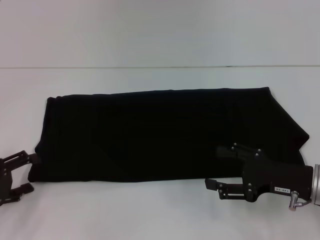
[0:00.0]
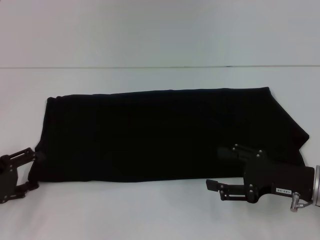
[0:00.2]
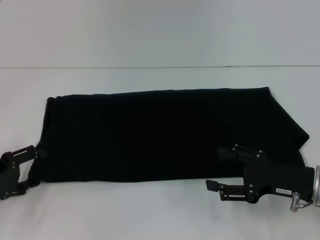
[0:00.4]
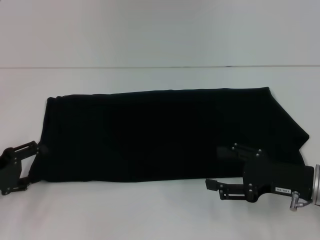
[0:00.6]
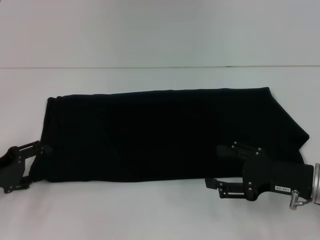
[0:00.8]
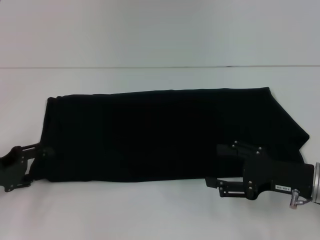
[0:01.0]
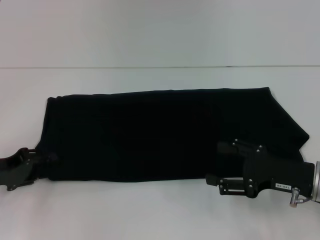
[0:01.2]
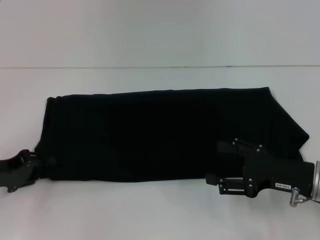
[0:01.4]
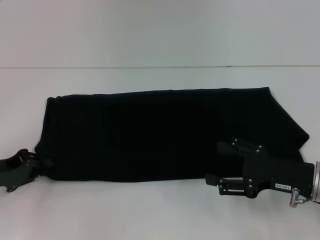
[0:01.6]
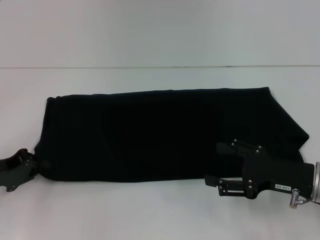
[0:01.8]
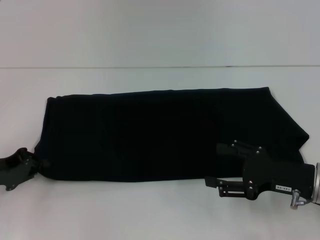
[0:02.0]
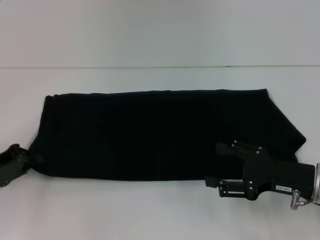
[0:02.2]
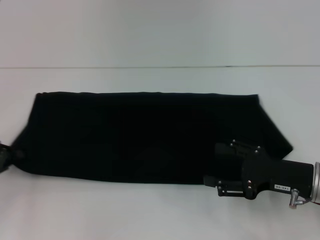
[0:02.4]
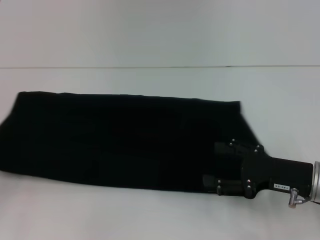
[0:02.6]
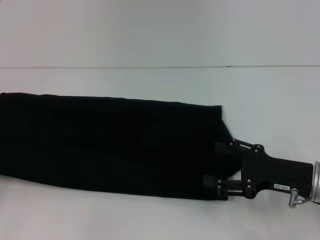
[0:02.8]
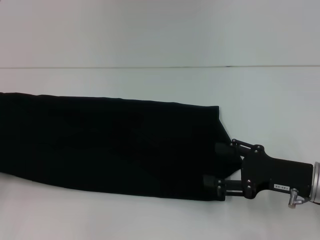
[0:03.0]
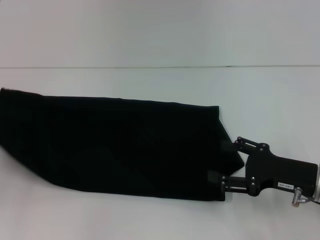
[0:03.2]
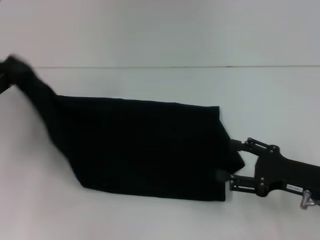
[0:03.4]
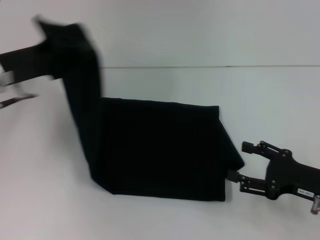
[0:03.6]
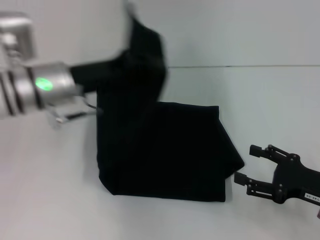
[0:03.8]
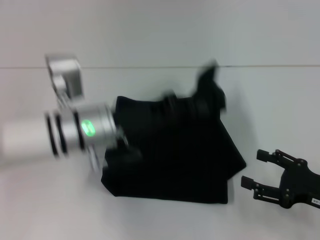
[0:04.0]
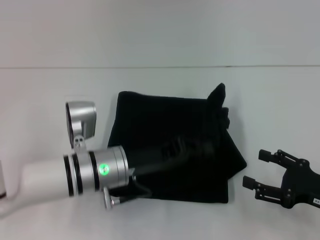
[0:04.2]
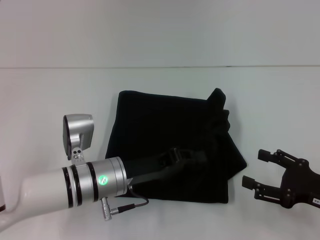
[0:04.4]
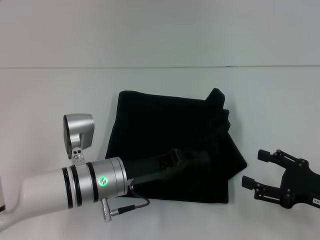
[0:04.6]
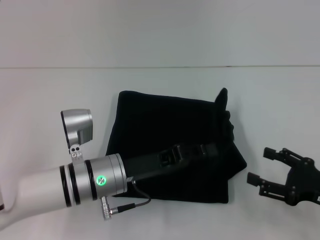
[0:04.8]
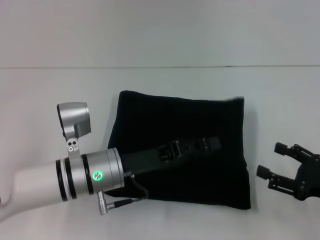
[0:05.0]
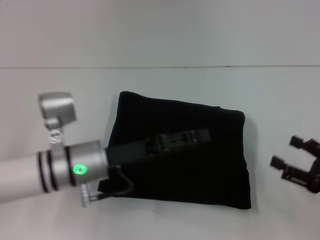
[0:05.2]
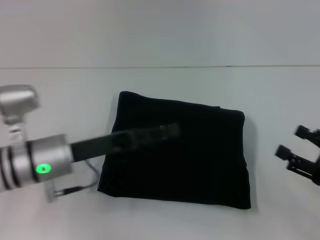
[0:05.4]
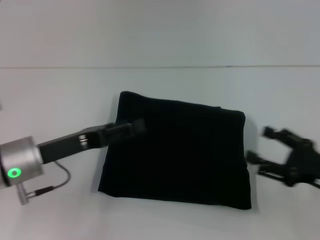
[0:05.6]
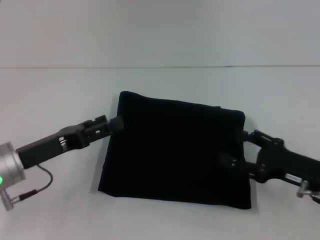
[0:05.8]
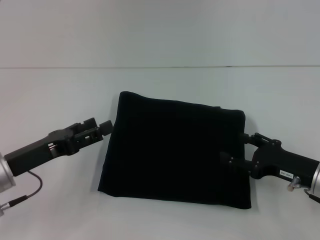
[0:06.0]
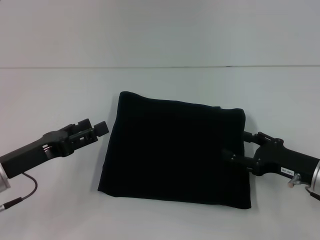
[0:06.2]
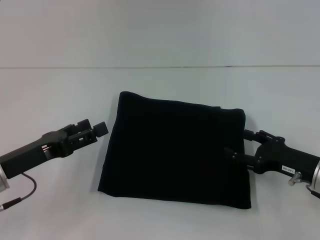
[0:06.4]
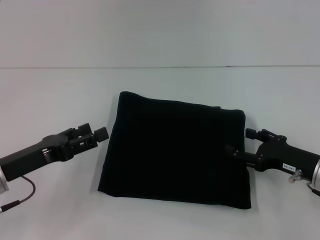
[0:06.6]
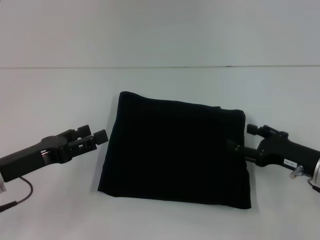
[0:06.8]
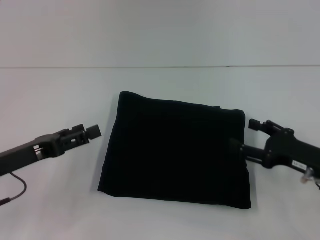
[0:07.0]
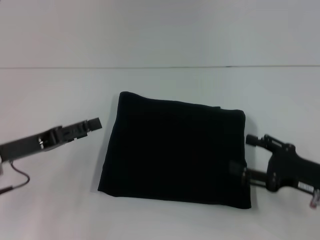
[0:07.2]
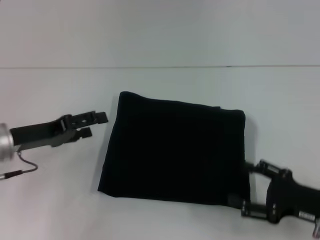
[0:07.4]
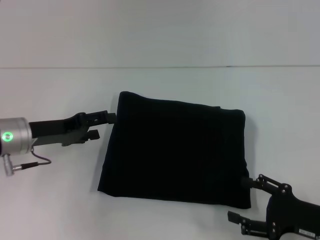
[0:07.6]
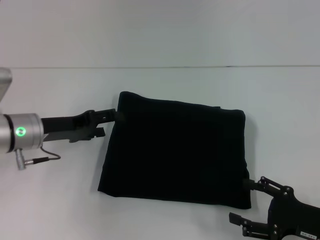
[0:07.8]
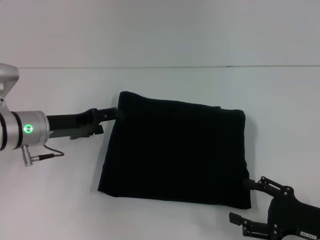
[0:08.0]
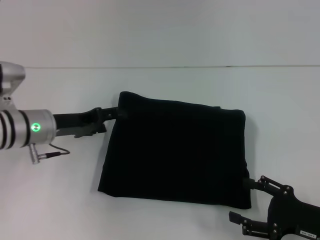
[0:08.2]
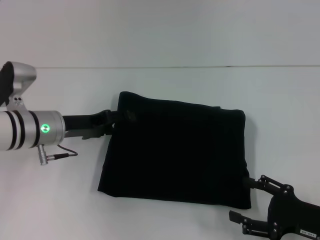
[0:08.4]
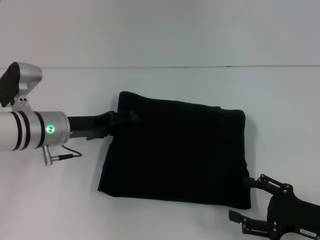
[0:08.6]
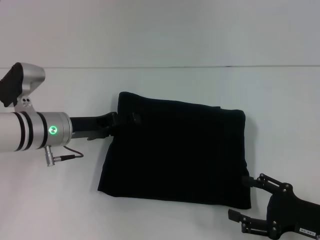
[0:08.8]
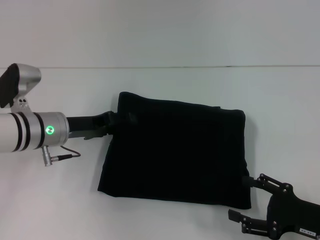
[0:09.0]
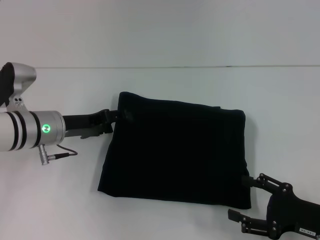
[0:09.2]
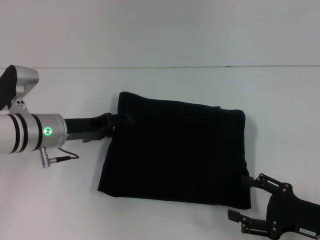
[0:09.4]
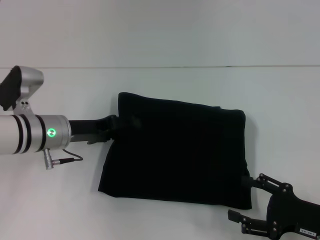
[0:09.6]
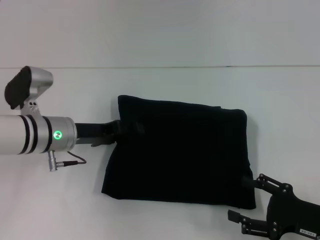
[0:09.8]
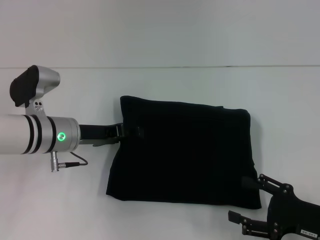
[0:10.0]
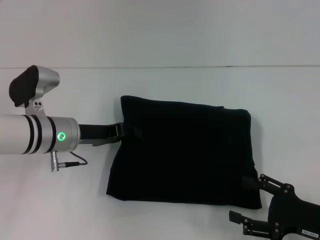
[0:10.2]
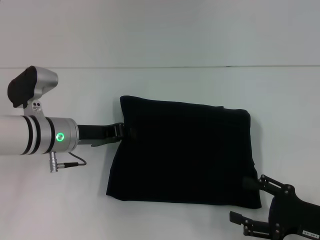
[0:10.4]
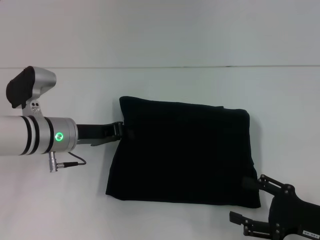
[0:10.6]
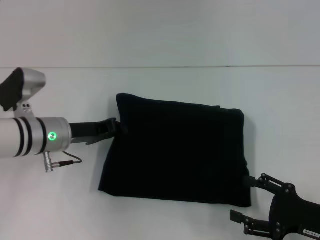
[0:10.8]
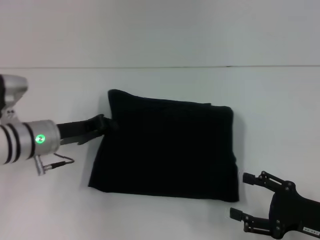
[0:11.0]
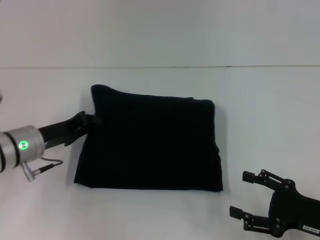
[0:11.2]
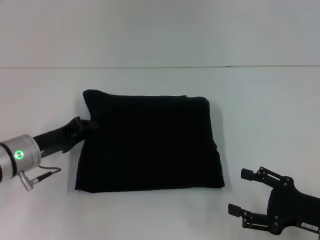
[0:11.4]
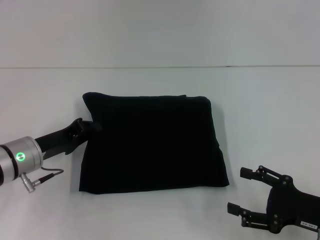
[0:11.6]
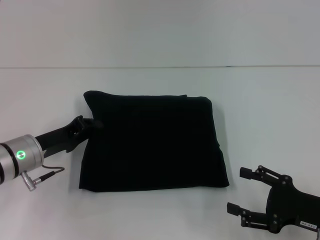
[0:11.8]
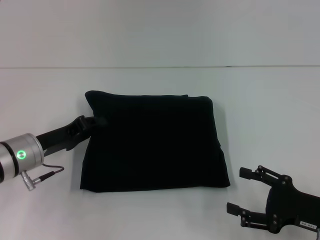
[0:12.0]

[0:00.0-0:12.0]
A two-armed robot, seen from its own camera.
Step, 0:00.0 to 0:04.6: Fold the clothes with your left hand.
0:00.0 to 0:01.6: The left gripper shifts by approximately 5 cm, and closes its fingers.
0:01.6 to 0:03.0: The left gripper is displaced to the left by roughly 10 cm, and closes its fingers.
0:03.0 to 0:04.4: The right gripper heads to the right, covering roughly 5 cm. The left gripper goes about 30 cm to the right.
0:04.4 to 0:06.0: The right gripper changes place by some 5 cm. Meanwhile the left gripper heads to the left, covering approximately 15 cm, and opens.
0:06.0 to 0:07.6: The left gripper shifts about 5 cm forward; the right gripper is displaced backward by about 5 cm.
0:07.6 to 0:09.0: The left gripper changes place by some 5 cm.
0:09.0 to 0:10.4: The left gripper closes.
0:10.4 to 0:12.0: The left gripper changes place by some 5 cm.

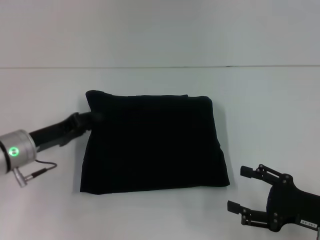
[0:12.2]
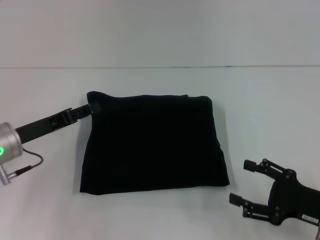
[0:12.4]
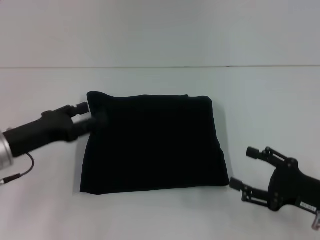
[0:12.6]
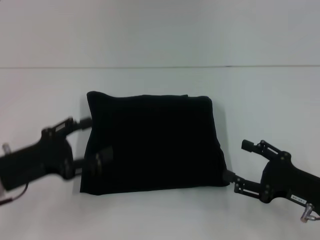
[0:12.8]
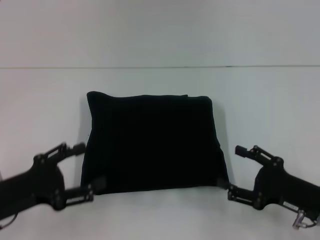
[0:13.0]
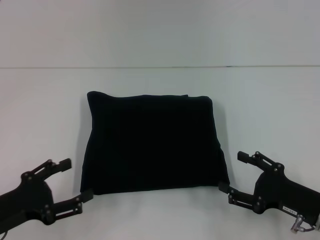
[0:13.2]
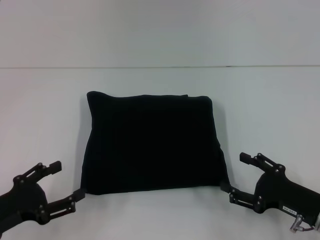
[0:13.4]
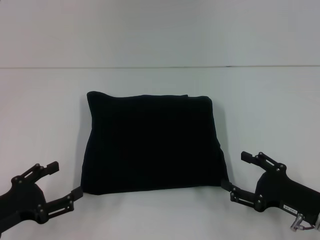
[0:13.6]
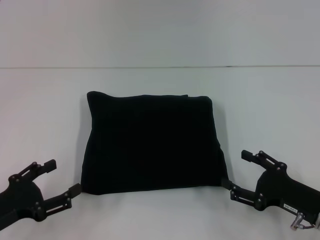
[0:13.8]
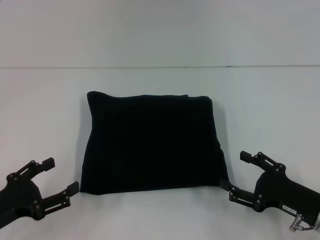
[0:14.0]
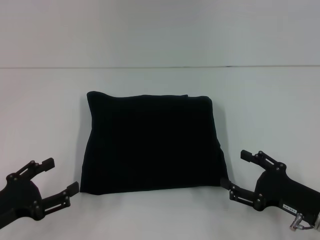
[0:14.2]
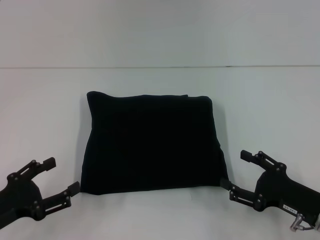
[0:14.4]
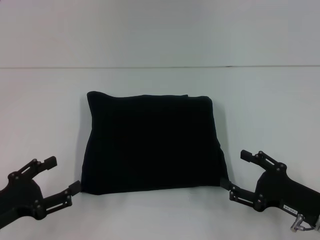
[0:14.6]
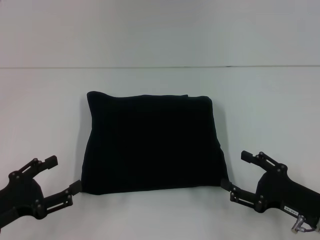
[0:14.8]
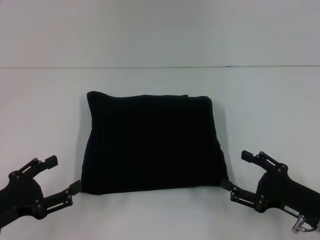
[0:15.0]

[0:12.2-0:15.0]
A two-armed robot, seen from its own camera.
0:12.2 to 0:13.6: The left gripper goes approximately 15 cm backward, and opens up.
0:13.6 to 0:15.0: Both grippers stay put.

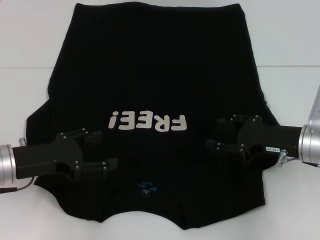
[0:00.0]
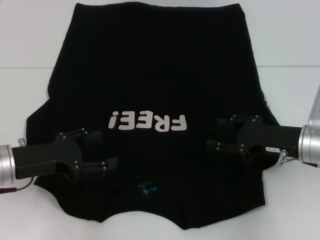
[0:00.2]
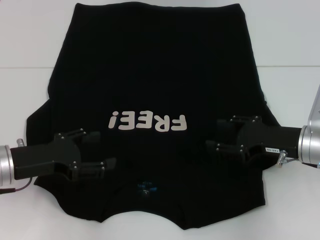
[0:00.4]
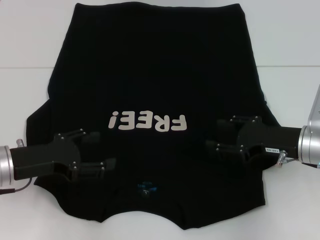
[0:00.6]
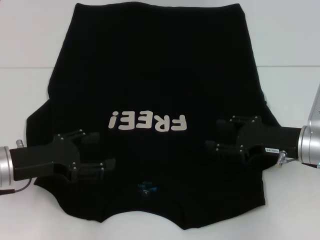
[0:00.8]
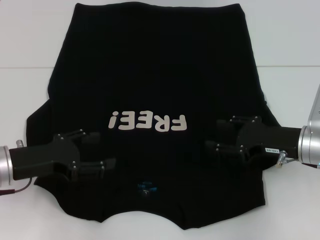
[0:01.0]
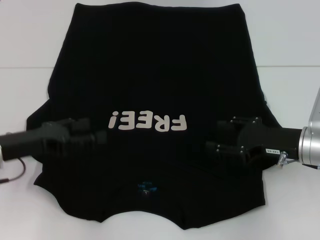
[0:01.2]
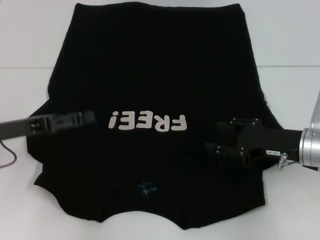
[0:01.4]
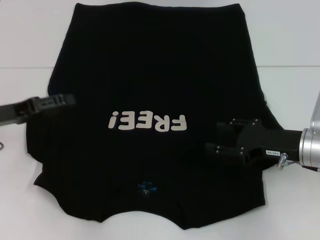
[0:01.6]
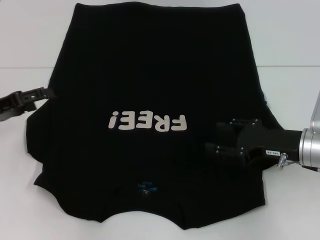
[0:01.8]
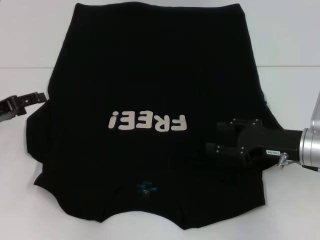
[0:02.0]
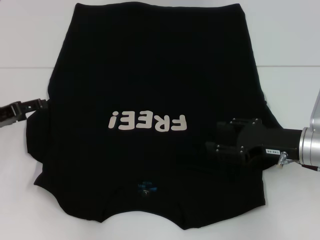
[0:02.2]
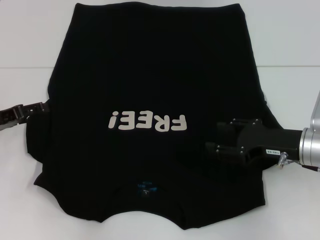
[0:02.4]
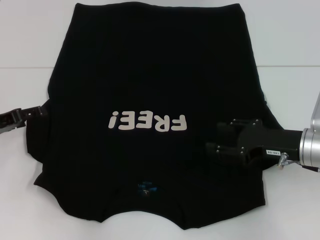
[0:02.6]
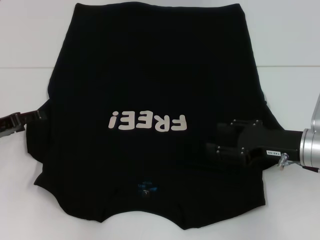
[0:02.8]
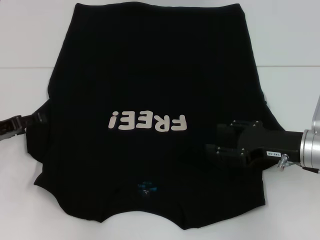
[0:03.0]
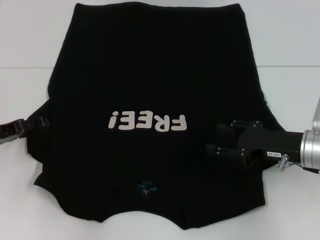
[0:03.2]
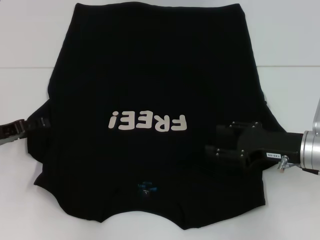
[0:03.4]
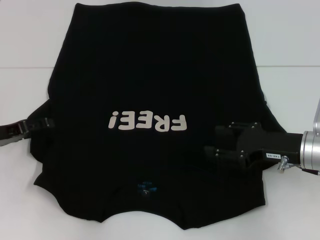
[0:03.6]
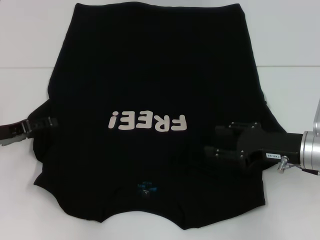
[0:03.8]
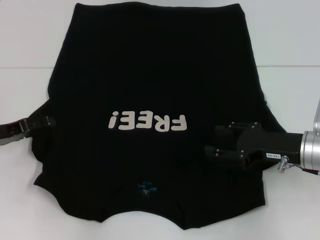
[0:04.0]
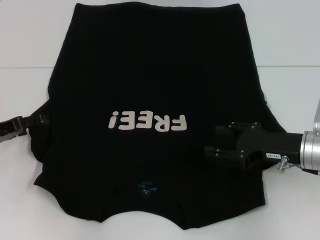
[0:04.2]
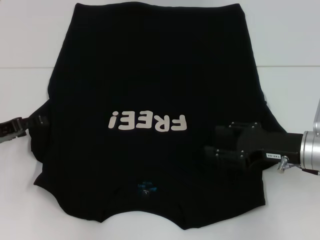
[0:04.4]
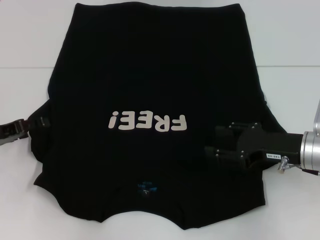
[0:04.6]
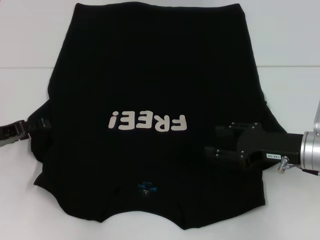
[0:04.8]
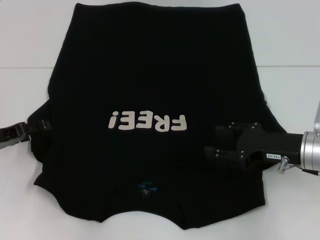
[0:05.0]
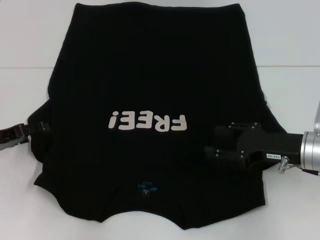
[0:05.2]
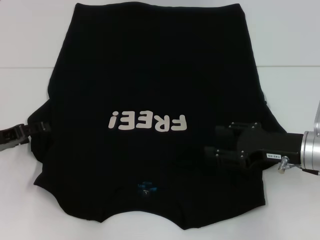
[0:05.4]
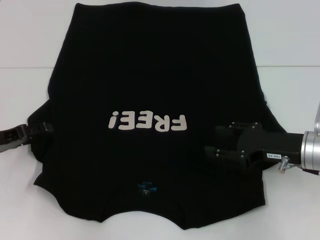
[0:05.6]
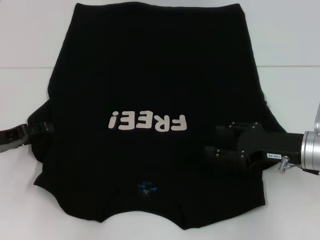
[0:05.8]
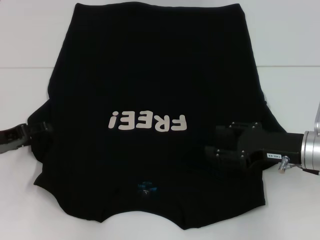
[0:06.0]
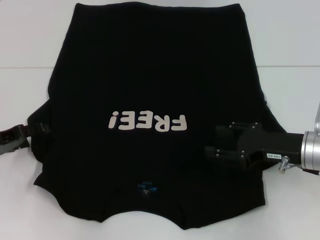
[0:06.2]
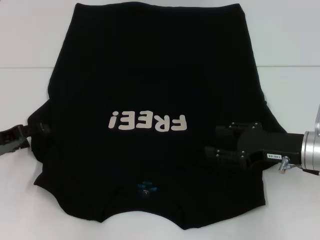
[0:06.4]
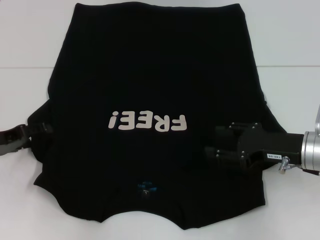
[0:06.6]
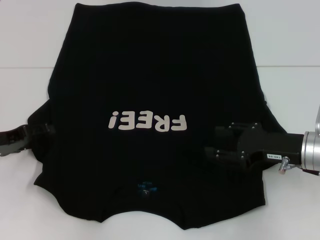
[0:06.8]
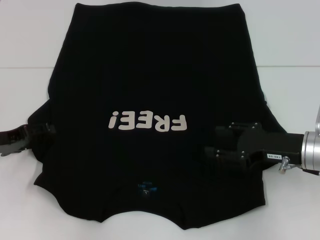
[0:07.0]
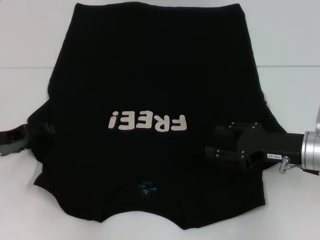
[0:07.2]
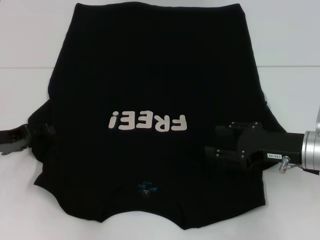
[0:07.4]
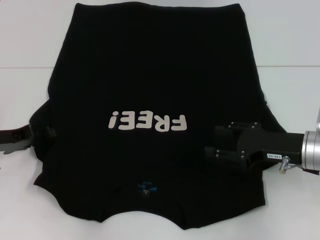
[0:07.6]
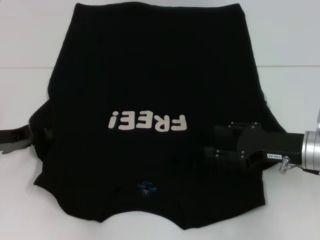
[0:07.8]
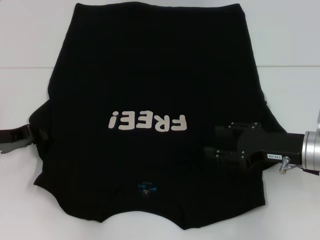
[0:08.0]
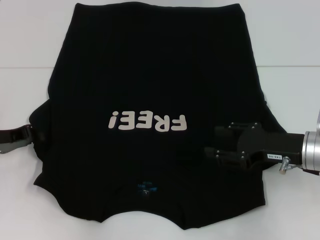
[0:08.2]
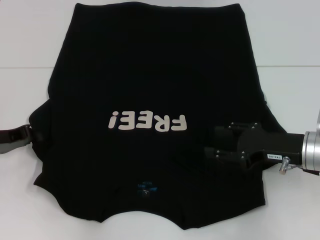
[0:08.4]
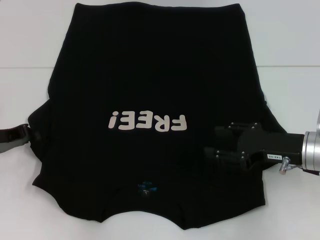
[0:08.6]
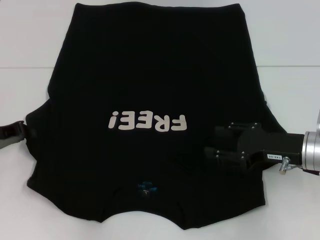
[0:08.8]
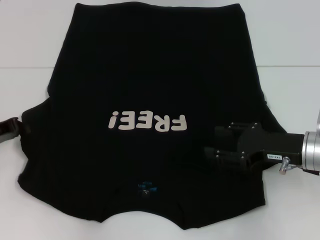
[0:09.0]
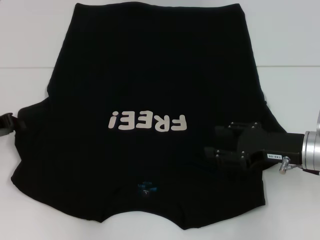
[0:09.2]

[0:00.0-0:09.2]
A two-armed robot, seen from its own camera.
0:00.0 to 0:01.6: The left gripper moves to the left, roughly 5 cm.
0:03.0 to 0:04.6: Neither gripper changes place.
0:04.6 to 0:06.2: The grippers make only small movements.
0:07.6 to 0:09.2: The left gripper closes up.
